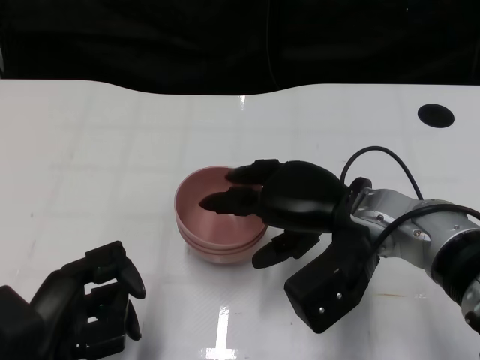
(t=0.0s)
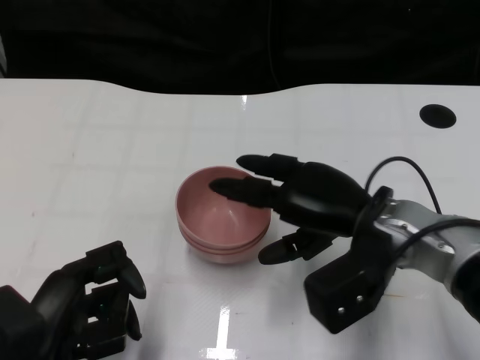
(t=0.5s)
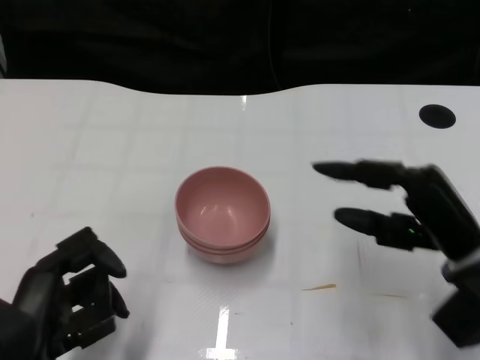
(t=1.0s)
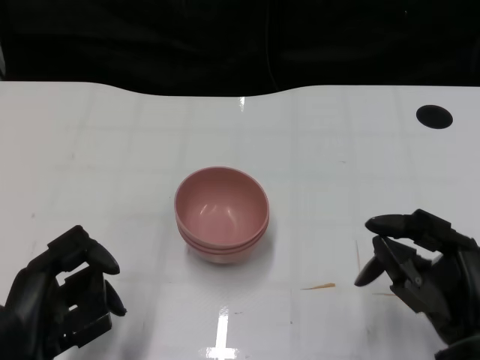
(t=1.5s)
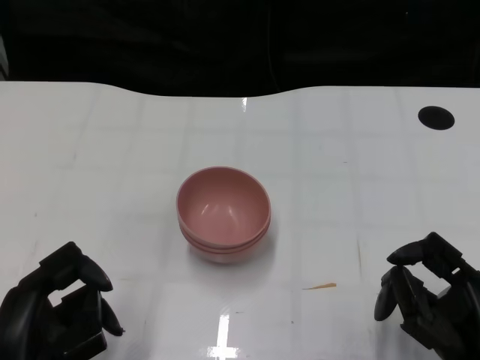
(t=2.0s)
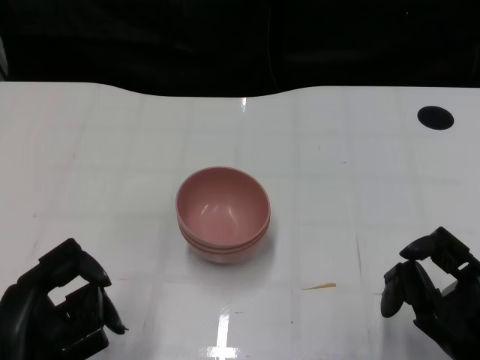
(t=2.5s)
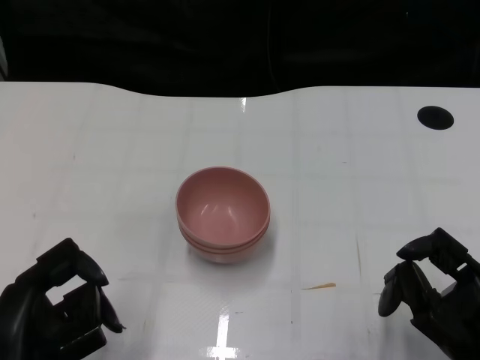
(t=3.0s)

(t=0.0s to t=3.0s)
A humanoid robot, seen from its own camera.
Task of the whole recording: Pick up the bowl on one side of the table and place it on top of the middle bowl, then pick up the bowl on the other side of the table and place it on top of the middle bowls.
t=0.0s - t=1.5s: The right hand heads backward, to the right and downward, covering some 15 cm.
t=1.5s - t=3.0s: The hands make only small movements.
